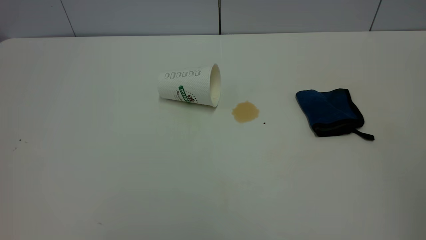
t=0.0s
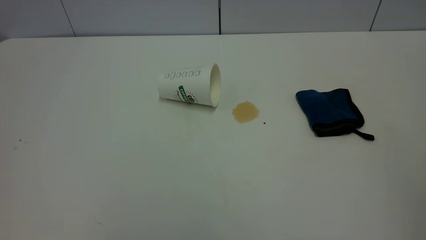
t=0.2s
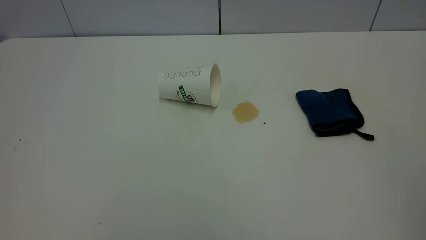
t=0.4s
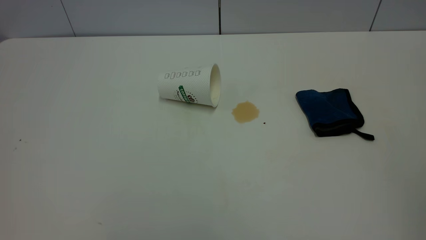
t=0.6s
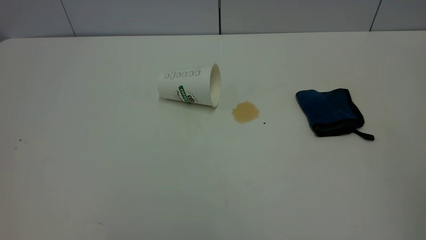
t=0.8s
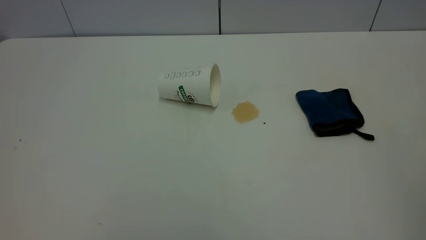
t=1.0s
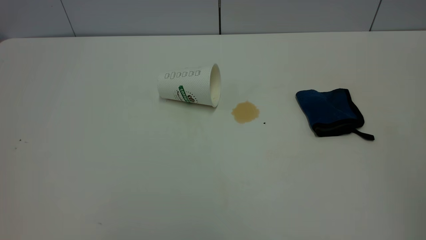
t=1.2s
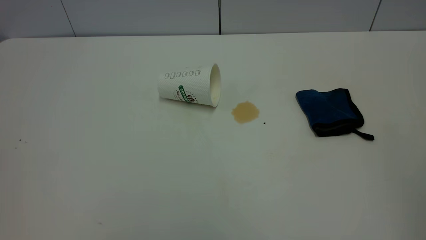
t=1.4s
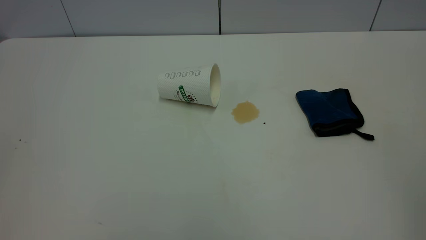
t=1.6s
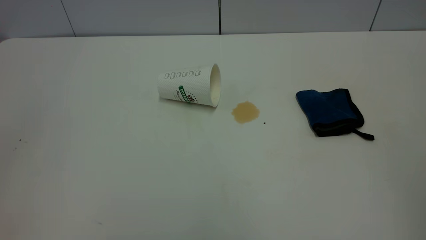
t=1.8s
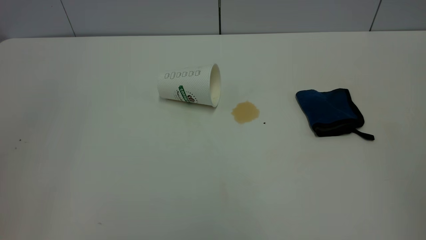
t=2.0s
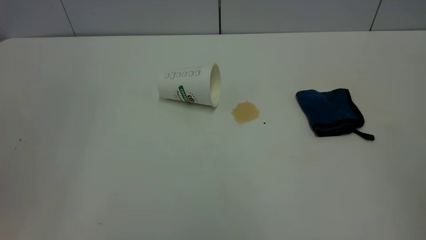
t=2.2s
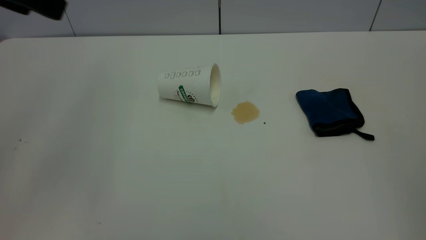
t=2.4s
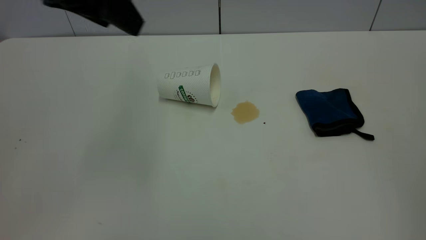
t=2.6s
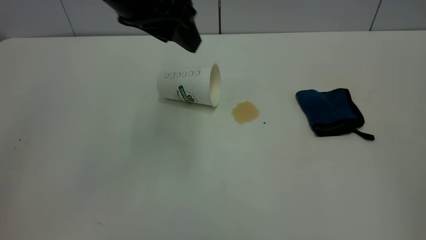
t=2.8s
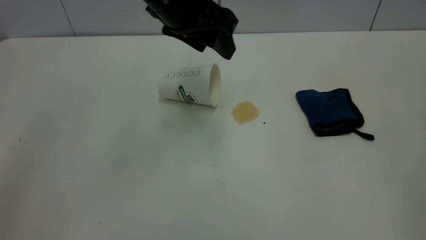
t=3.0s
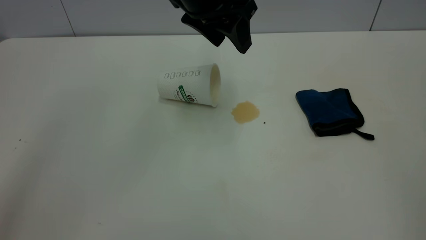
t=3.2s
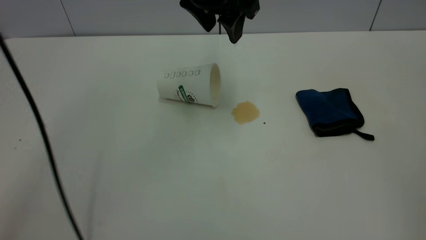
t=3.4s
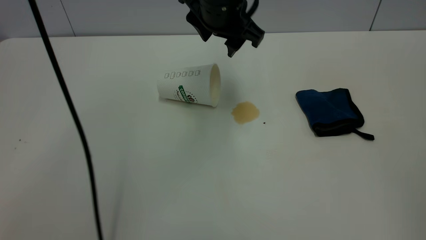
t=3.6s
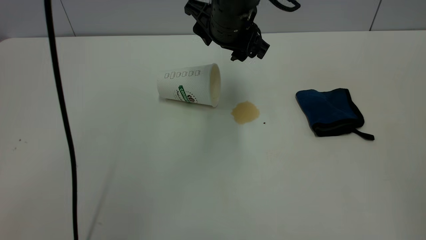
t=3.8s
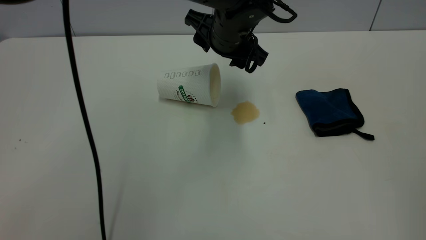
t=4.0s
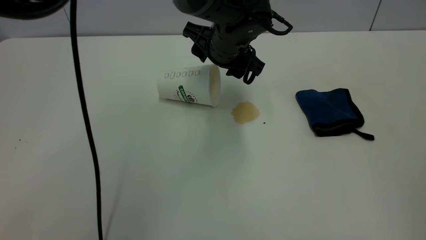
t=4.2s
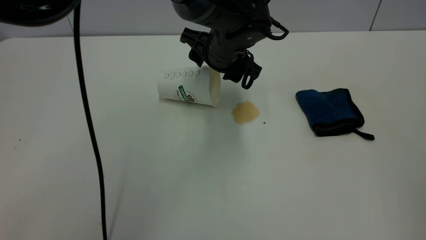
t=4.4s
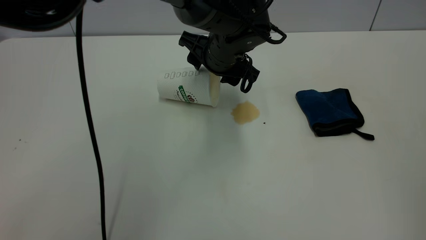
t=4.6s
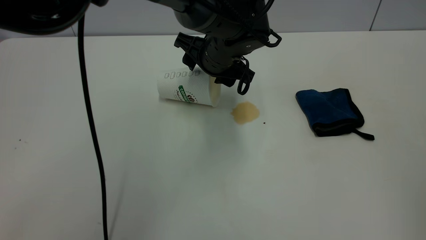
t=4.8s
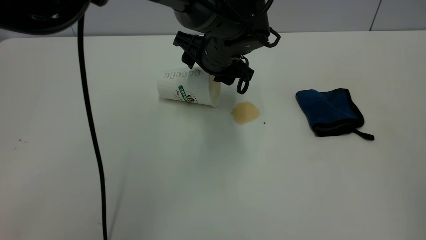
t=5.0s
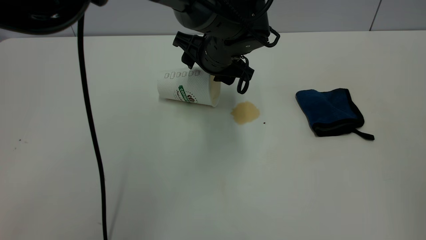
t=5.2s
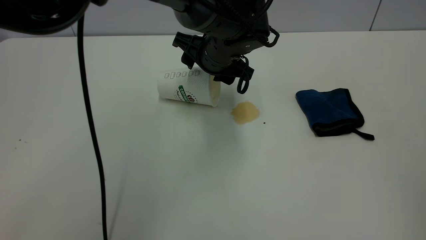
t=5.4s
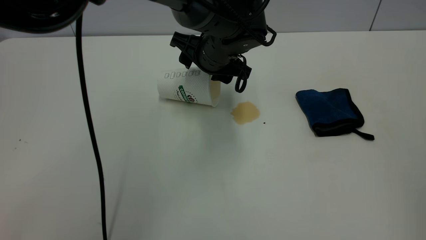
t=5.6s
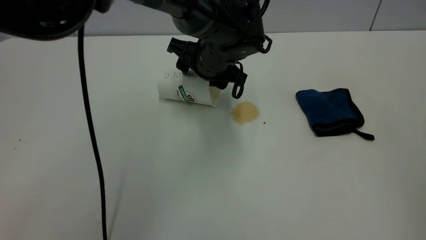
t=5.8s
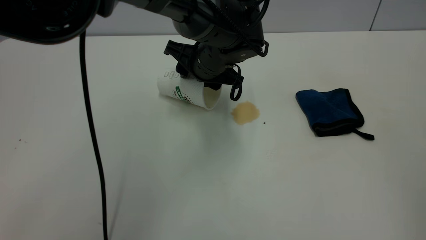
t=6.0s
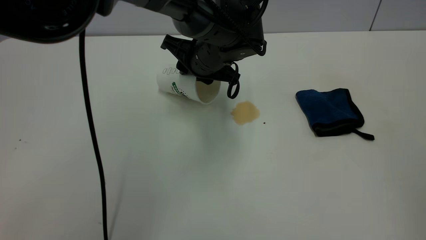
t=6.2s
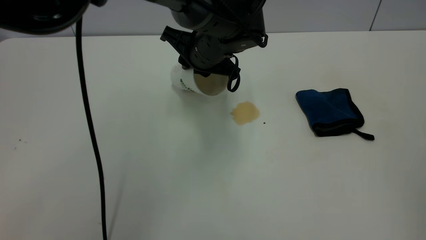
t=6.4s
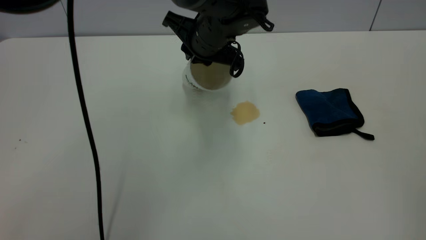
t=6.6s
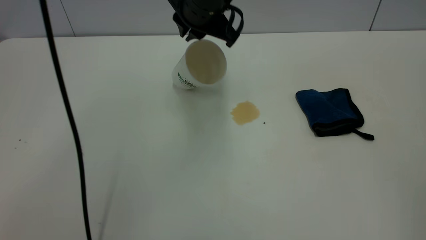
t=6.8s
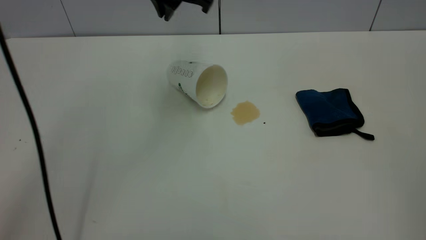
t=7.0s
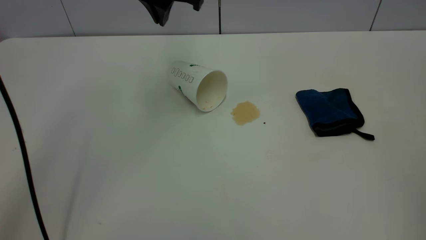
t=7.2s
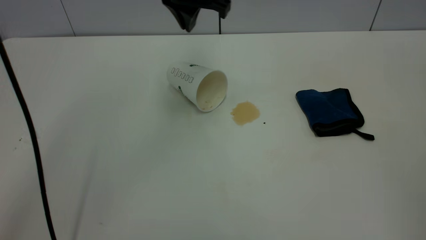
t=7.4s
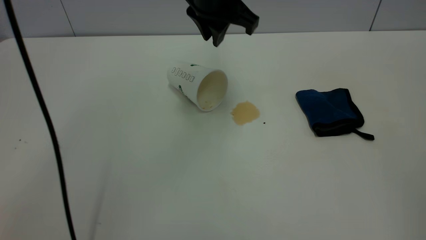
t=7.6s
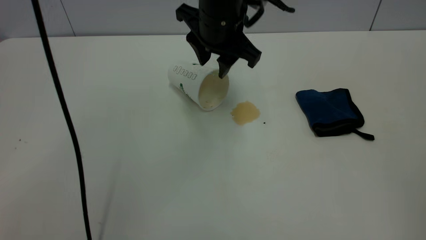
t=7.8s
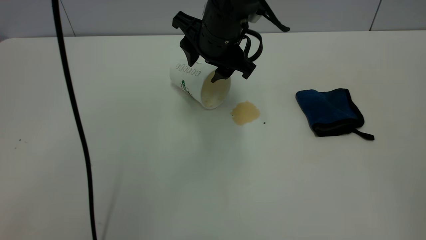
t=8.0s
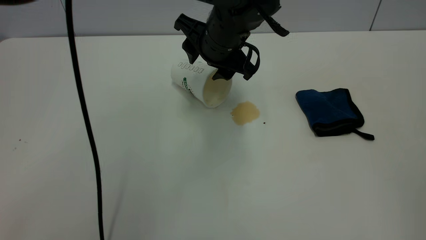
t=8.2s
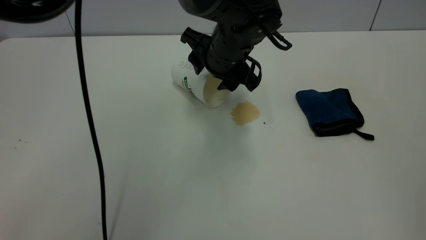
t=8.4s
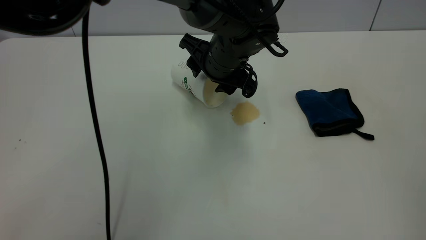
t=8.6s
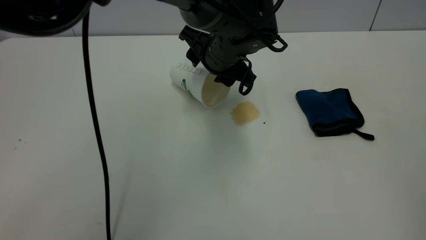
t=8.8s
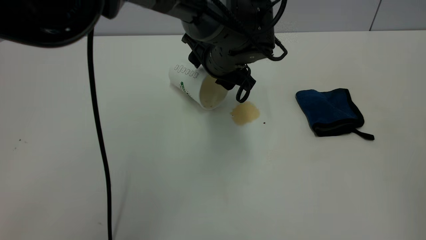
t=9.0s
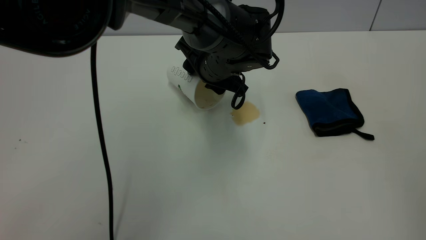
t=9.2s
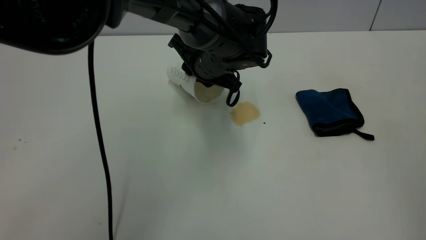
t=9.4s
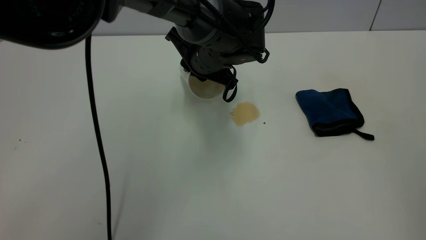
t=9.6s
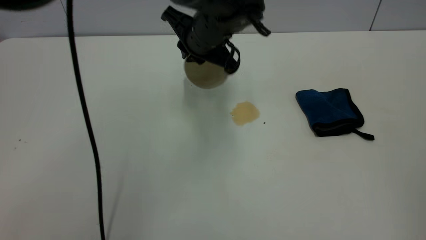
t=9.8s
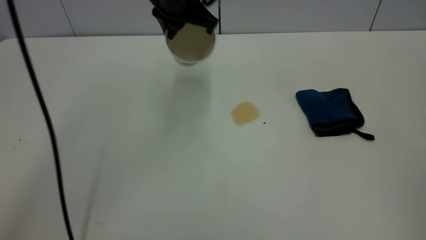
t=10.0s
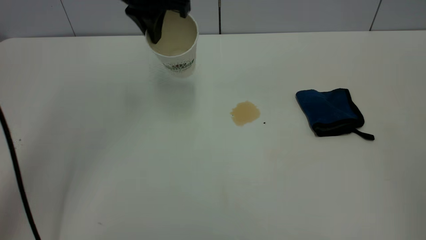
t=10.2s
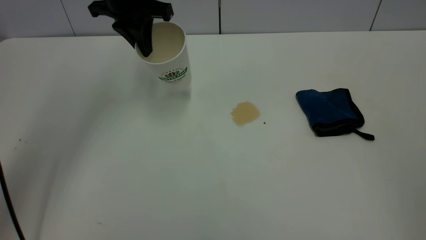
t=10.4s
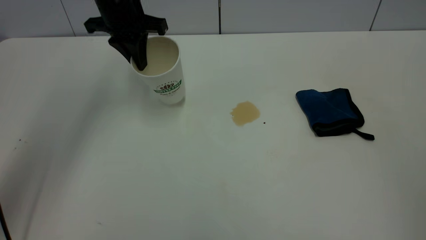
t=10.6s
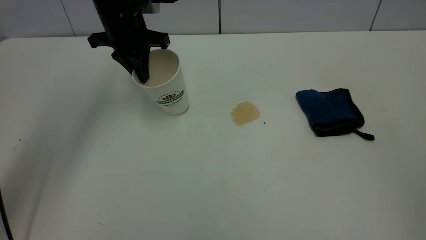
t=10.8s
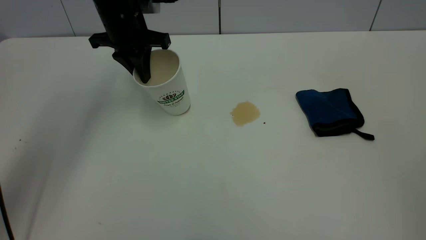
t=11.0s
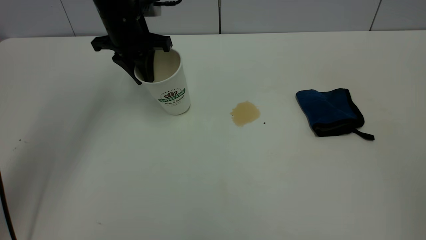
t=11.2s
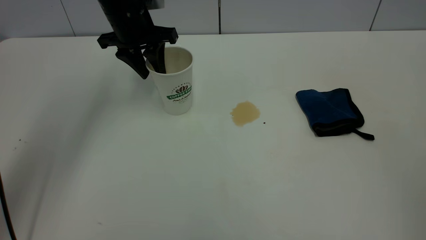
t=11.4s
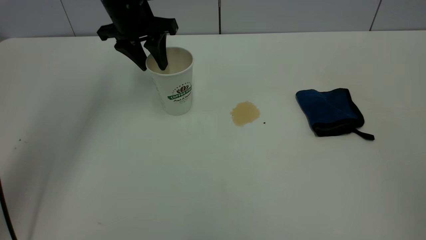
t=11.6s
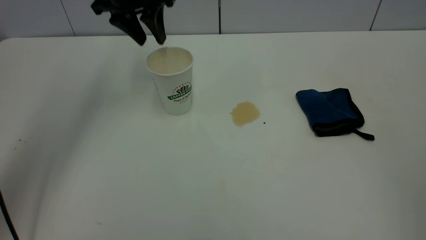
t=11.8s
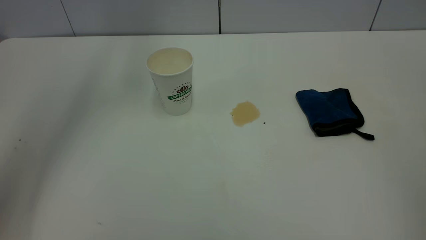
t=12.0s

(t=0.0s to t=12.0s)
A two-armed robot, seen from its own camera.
Task of the whole recording: the left gripper pick up the fallen cup and place it upright, the right gripper grasp the blue rag and wipe the tea stain on the table, the right gripper put the blue rag back in its original position.
Step, t=0.0s - t=11.6s: Stand the paper cup upright.
t=1.6s - t=3.0s: The left gripper goes some 40 cm forward, to the right and downward.
t=3.0s - t=4.4s: The left gripper moves downward and to the right, some 15 cm.
t=4.4s - t=6.0s: The left gripper closes its fingers.
t=6.0s - t=7.6s: The left gripper shifts roughly 10 cm upward, and closes, then reopens.
t=7.6s - t=9.0s: The left gripper travels downward by roughly 10 cm, and opens up.
t=9.0s - t=10.4s: The left gripper is displaced to the left and upward by some 20 cm, and closes its fingers.
t=10.4s - t=12.0s: The left gripper moves upward, some 10 cm, and opens its fingers.

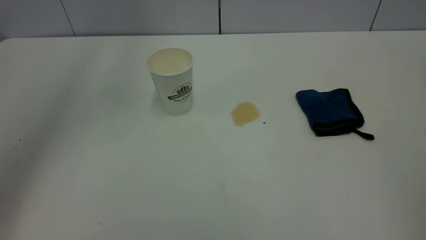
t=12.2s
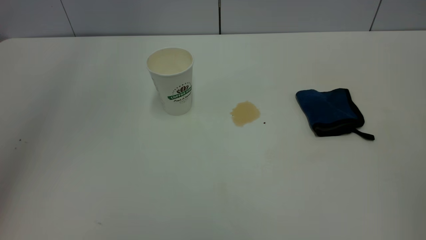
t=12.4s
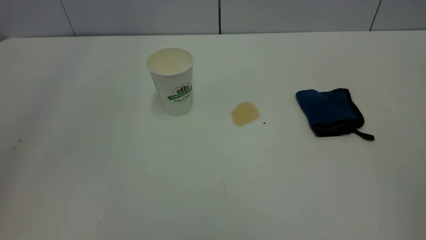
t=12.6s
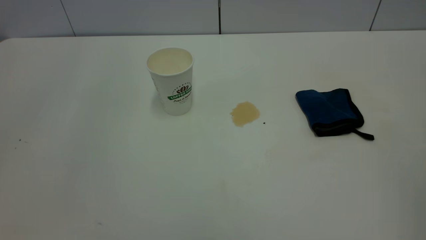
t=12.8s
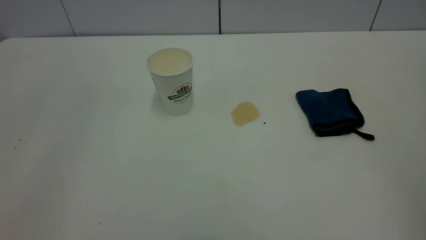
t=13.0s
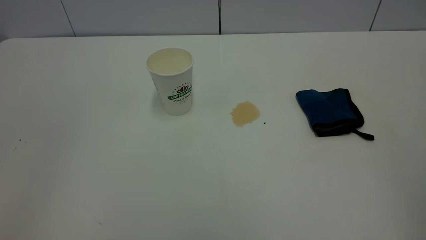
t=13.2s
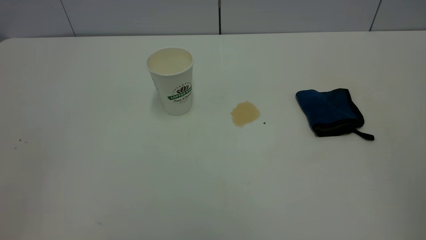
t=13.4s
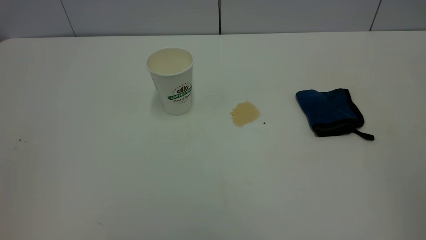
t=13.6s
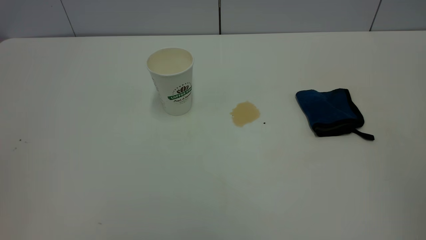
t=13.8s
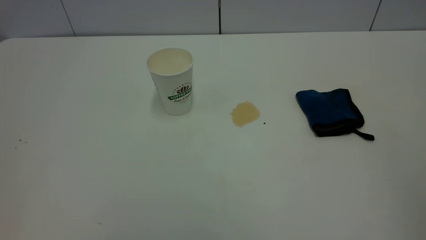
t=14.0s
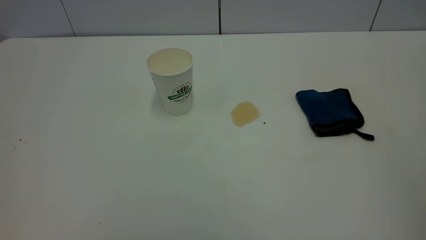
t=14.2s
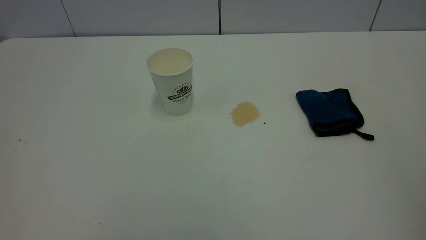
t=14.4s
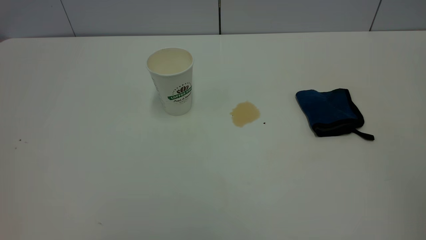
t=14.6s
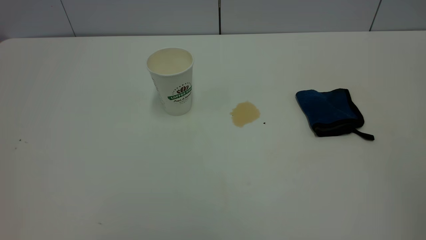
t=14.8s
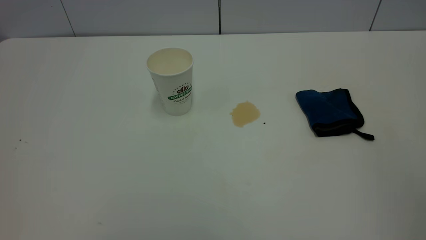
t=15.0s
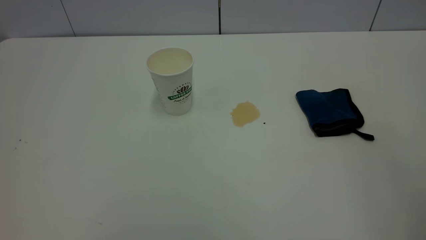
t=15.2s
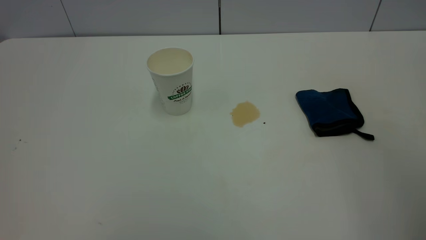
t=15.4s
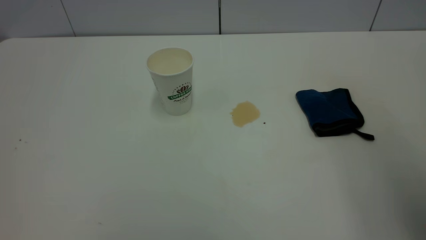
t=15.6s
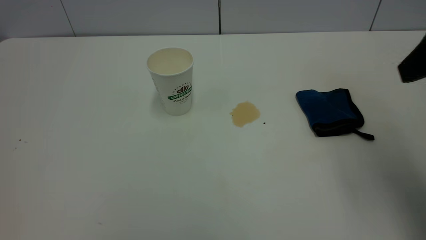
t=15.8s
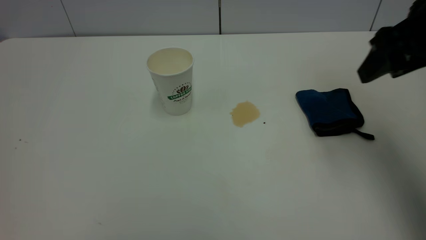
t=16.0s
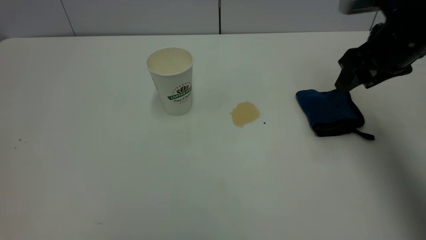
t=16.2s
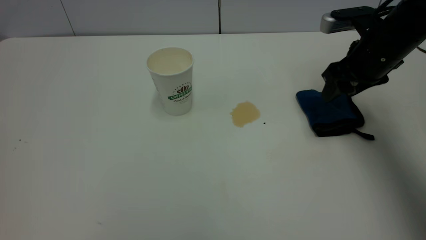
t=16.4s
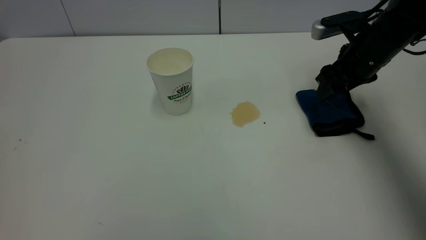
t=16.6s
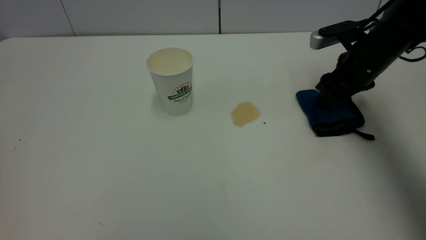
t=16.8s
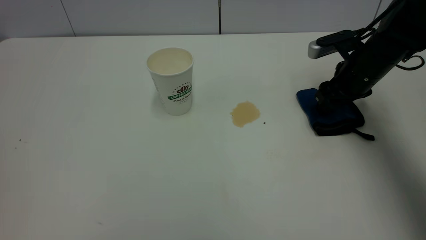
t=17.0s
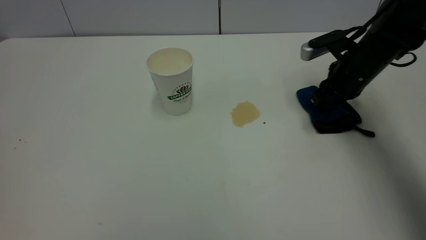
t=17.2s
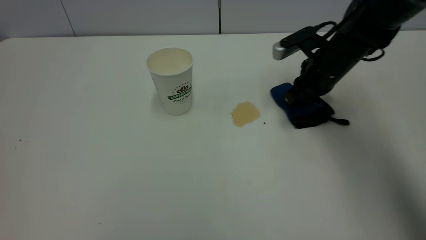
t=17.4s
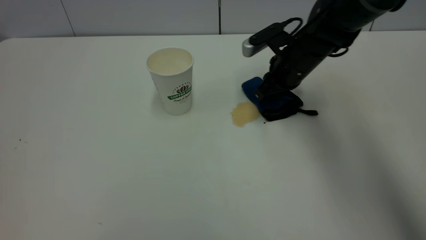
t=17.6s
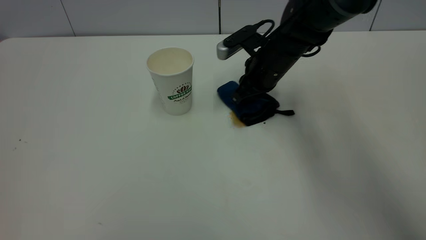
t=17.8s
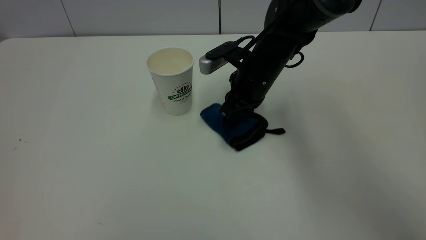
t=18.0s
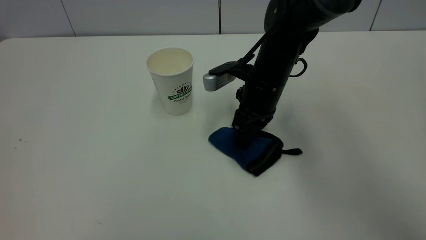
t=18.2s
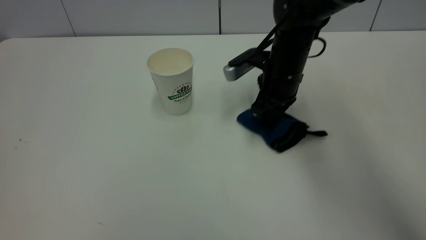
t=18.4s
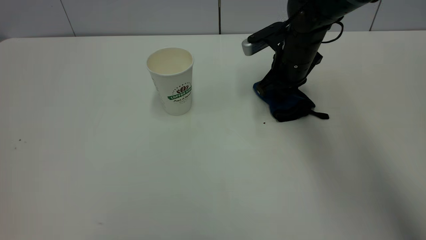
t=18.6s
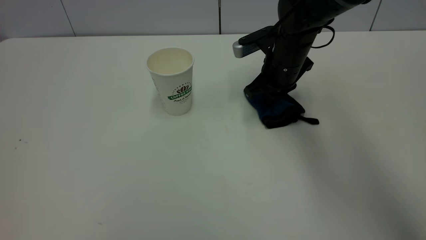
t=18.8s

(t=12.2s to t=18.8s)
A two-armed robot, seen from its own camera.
Task of the whole recording: the left gripper pick up the fallen cup and place it upright, the right gripper grasp the blue rag and wipe the tea stain on the table, the right gripper put the blue rag back in its original position.
t=12.2s - t=13.8s: The left gripper shifts about 40 cm backward.
t=15.4s - t=17.2s: The right gripper moves forward and downward, roughly 40 cm, and closes its fingers.
t=17.2s - t=18.8s: The right gripper moves to the left, approximately 10 cm.
